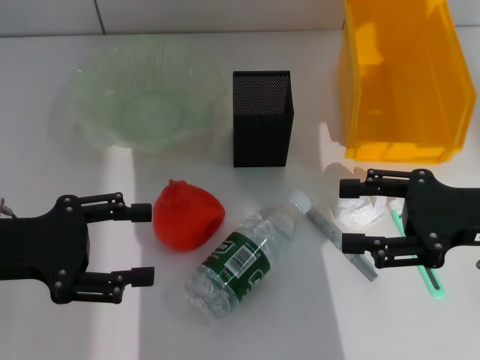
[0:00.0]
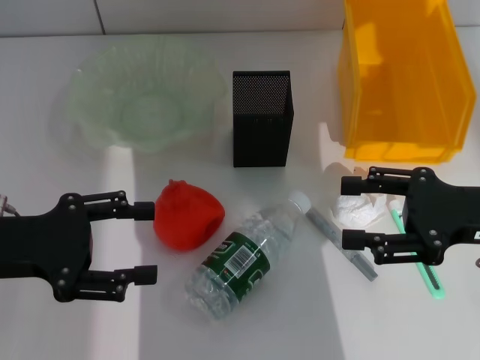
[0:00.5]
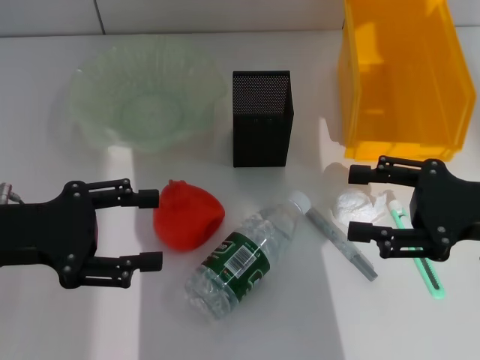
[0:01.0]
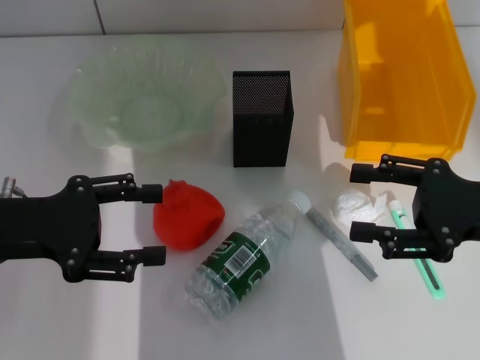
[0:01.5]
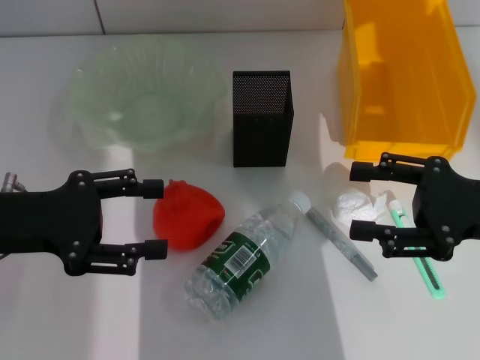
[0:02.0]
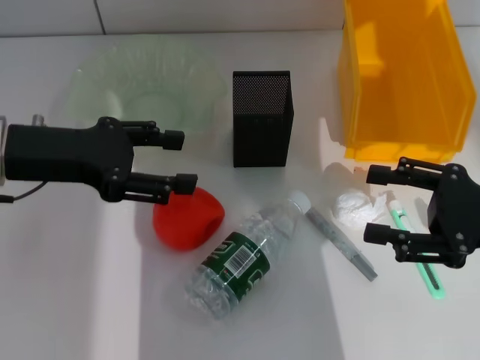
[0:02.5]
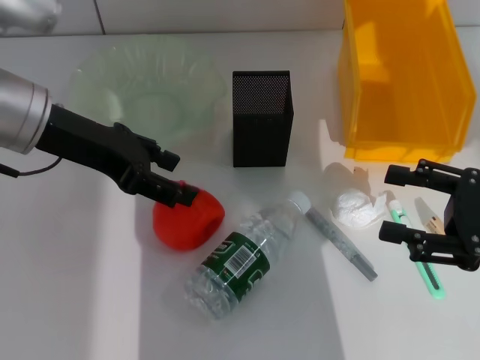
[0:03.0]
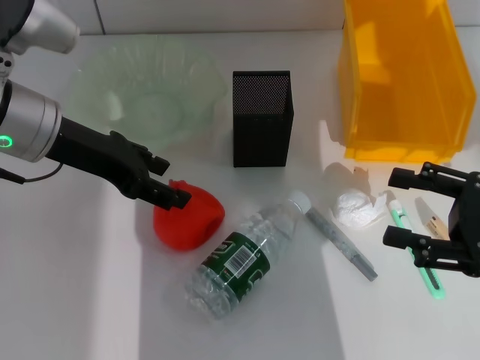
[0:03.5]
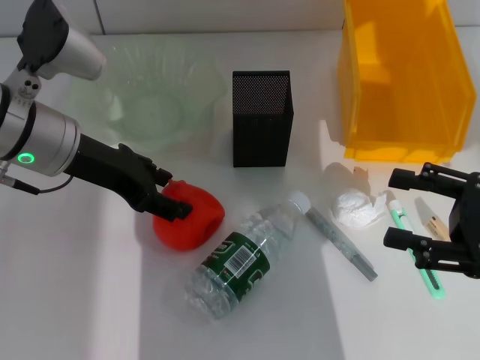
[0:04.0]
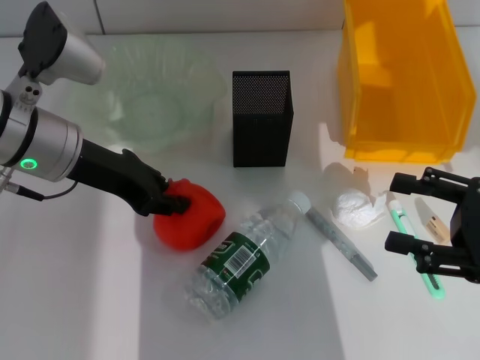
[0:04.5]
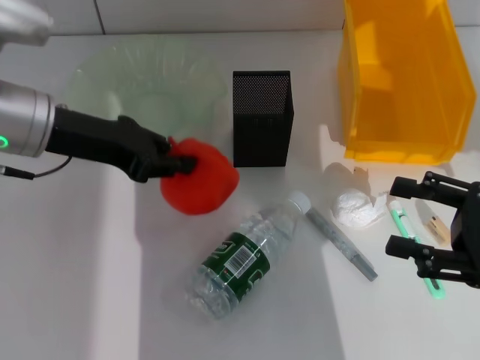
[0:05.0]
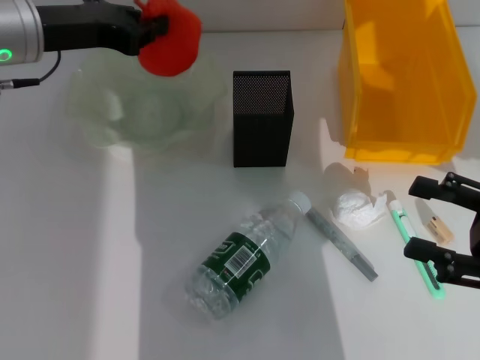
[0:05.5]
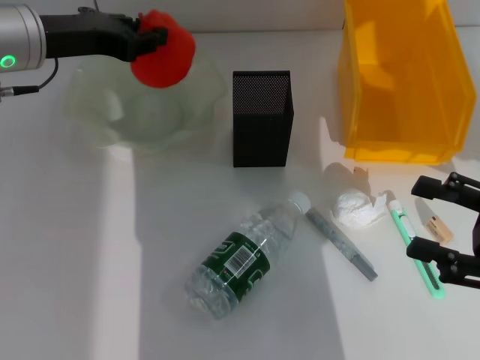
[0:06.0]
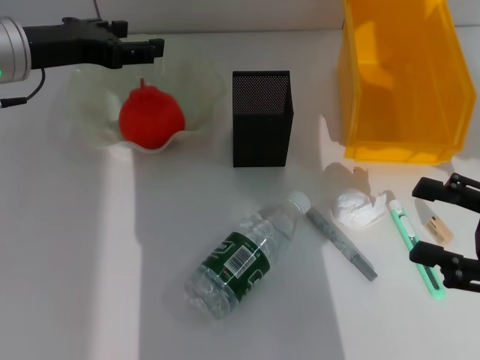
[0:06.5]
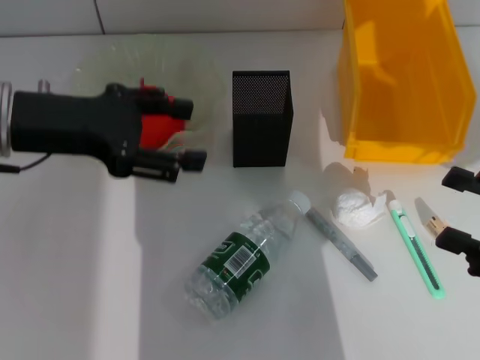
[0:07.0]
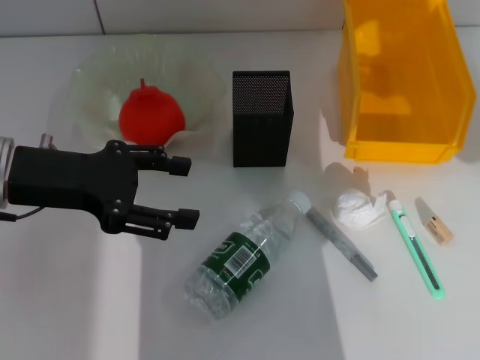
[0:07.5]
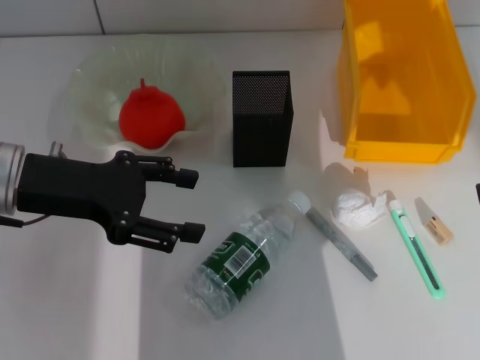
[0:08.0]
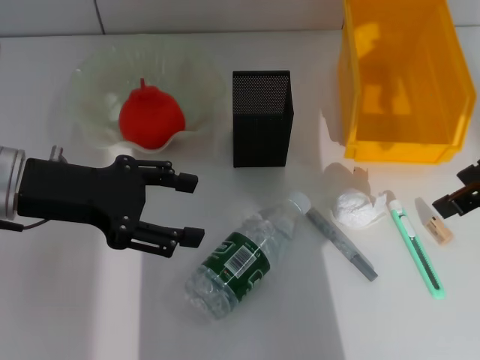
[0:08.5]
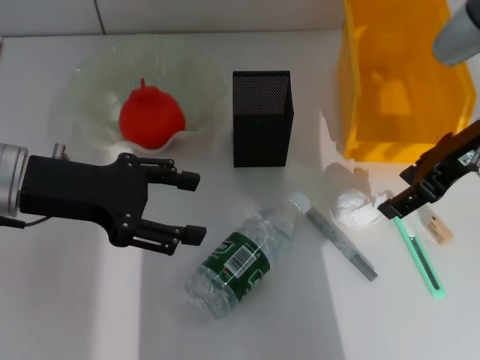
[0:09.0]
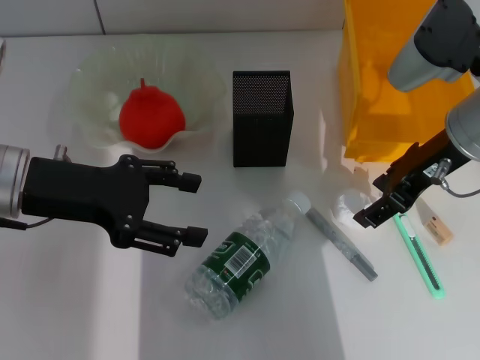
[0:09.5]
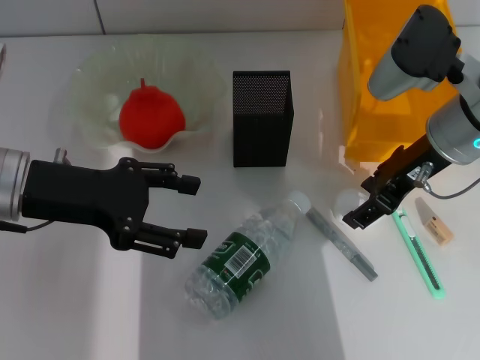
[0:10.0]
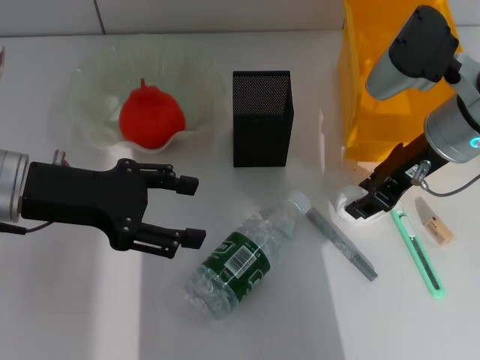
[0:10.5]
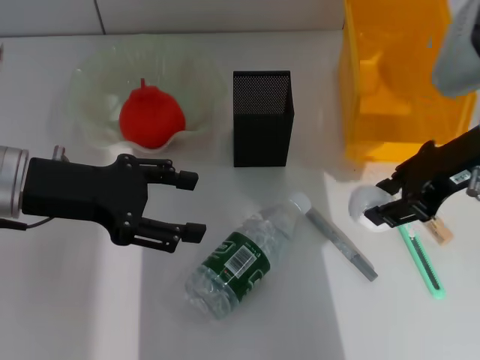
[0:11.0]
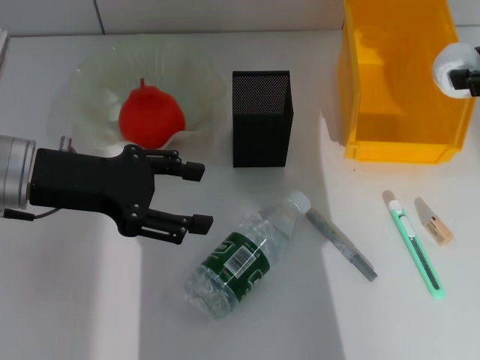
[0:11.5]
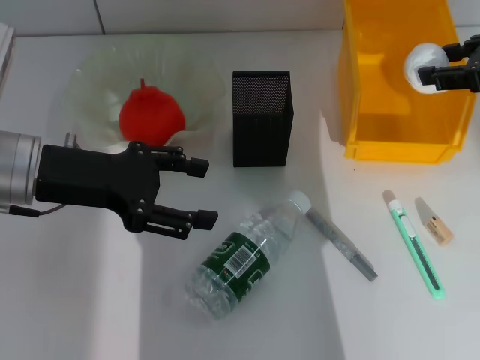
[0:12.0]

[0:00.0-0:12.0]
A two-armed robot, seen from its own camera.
Step, 0:00.0 to 0:04.5: Grab the orange with the left hand.
Step, 0:05.0 to 0:06.0: Place the orange into the fruit bowl with the left hand.
Step, 0:06.5 to 0:10.0: Grab the paper ball with the right hand.
0:00.0 to 0:02.0: The grippers make only small movements.
0:02.0 to 0:04.0: The left gripper shifts some 10 cm forward and to the right.
0:04.0 to 0:06.0: The left gripper ends up roughly 5 cm from where it was, and closes its fingers.
0:06.0 to 0:08.0: The right gripper travels upward and forward by some 15 cm, while the left gripper shifts some 10 cm backward, and opens.
0:08.0 to 0:10.0: The right gripper heads to the left, forward and downward, covering approximately 20 cm.
0:10.0 to 0:12.0: The right gripper heads to the right and upward, covering some 15 cm, and closes up.

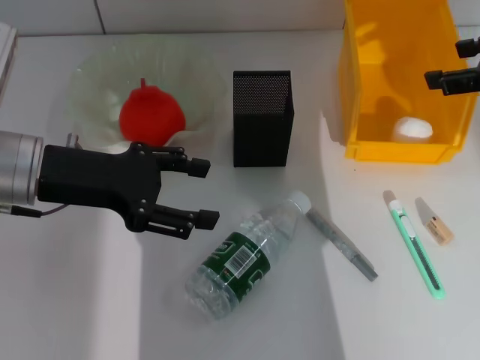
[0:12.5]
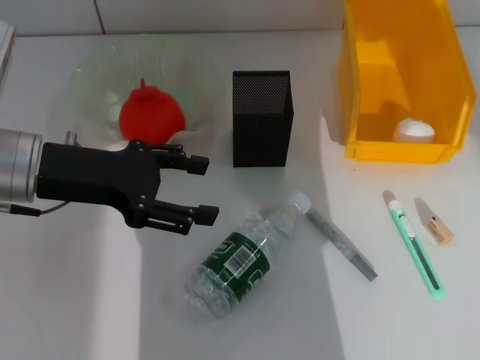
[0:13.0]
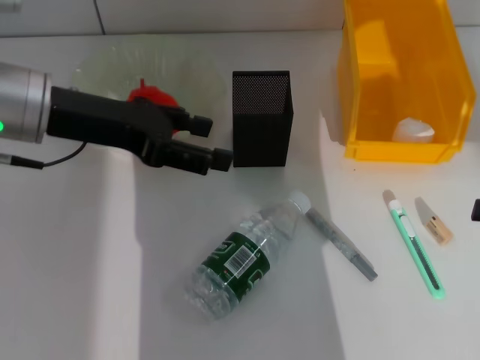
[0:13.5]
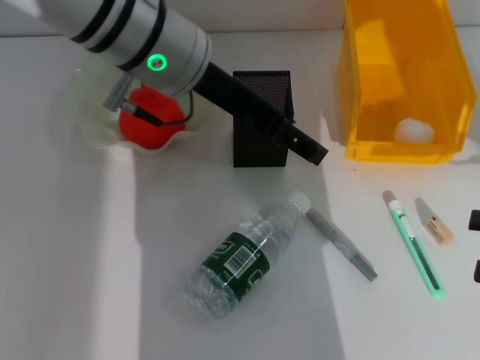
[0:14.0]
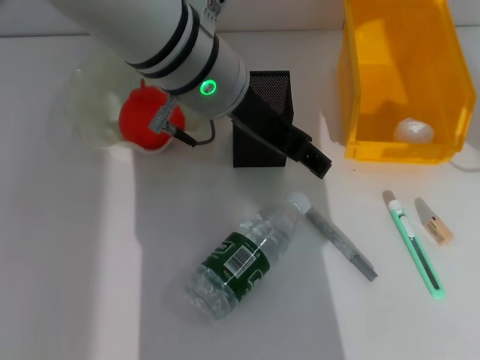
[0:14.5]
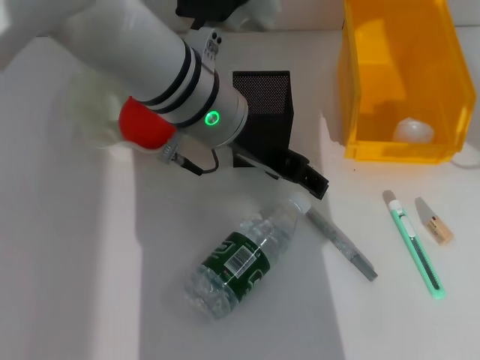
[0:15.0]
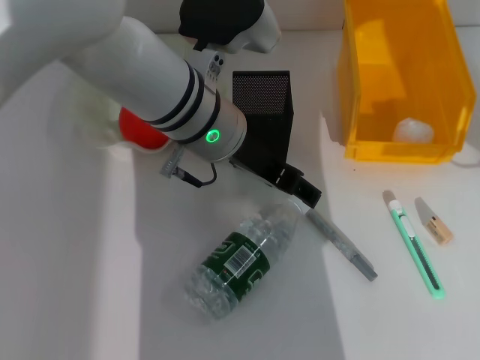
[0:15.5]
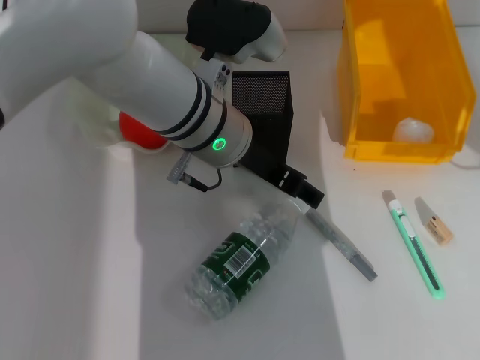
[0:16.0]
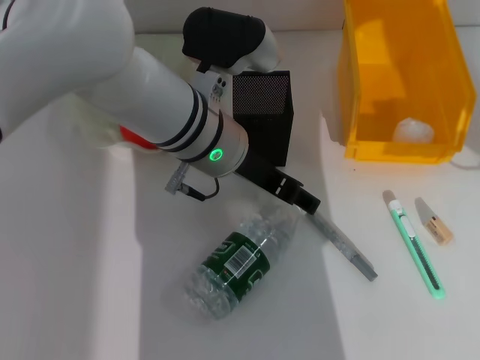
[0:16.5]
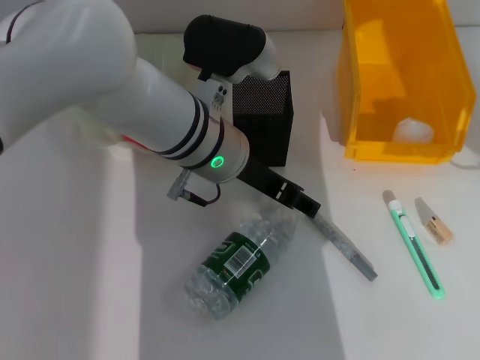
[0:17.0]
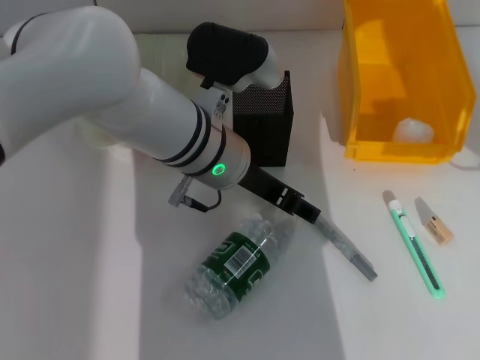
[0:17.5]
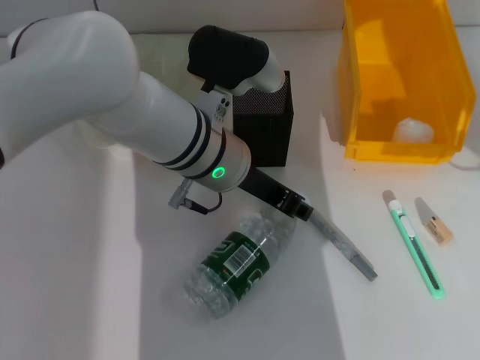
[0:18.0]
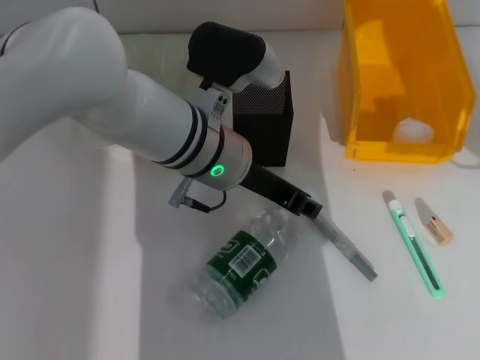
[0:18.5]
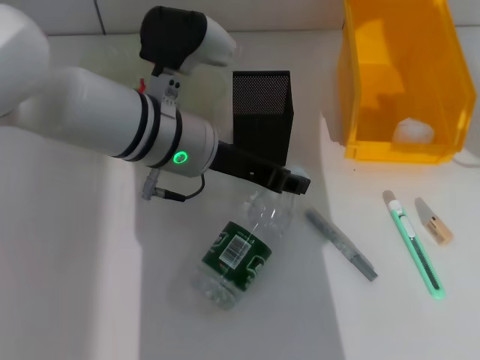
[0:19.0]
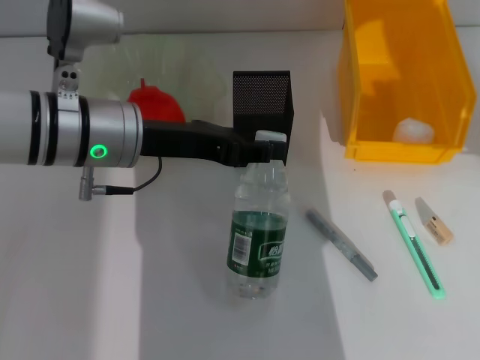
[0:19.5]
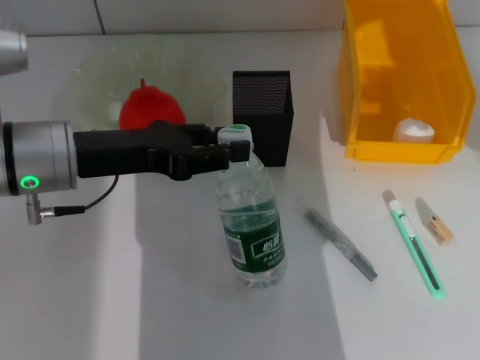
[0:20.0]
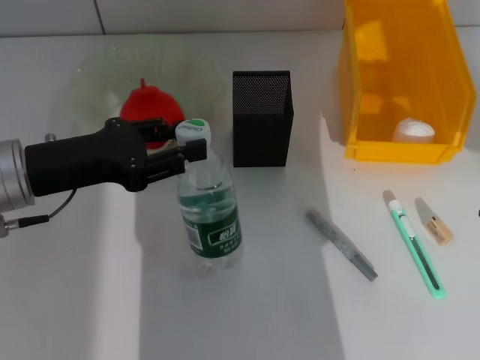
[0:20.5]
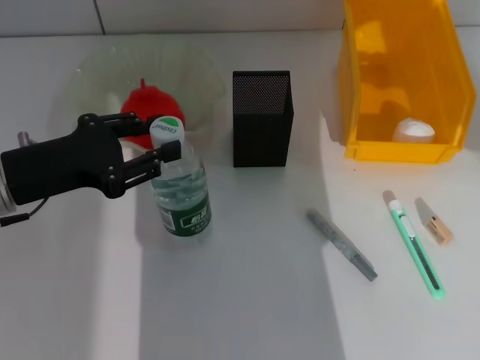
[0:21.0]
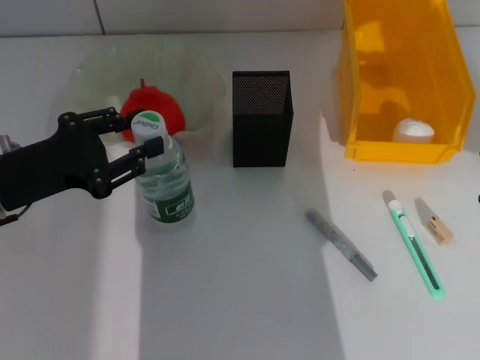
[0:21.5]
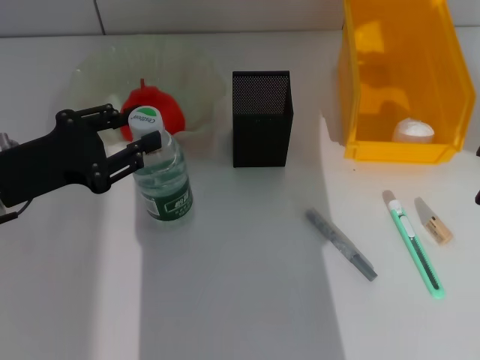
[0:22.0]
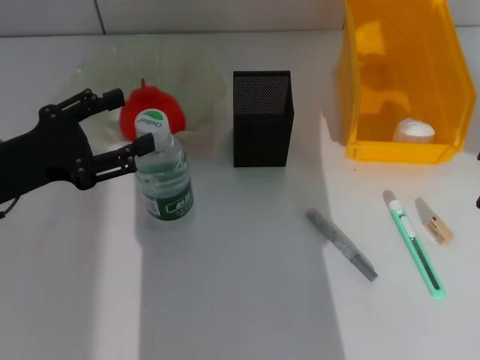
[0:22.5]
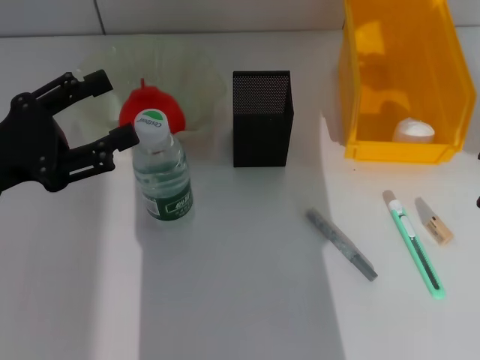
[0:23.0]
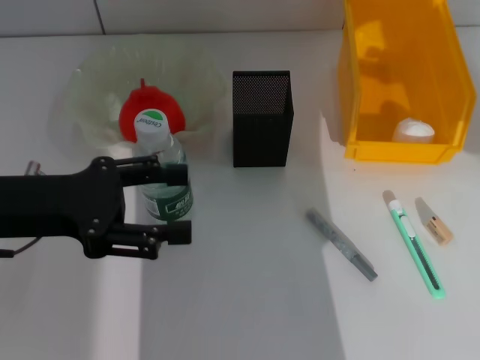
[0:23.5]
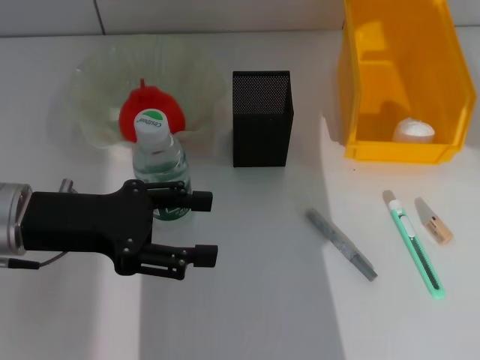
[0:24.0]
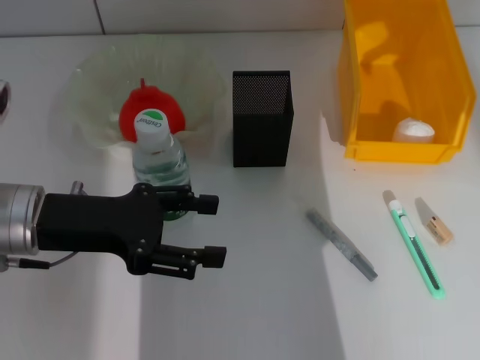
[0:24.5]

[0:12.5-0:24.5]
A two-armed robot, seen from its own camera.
Step, 0:12.5 to 0:18.0: Grab the water bottle with the left hand.
Step, 0:18.5 to 0:22.0: Place the water bottle on the table with the left hand.
0:12.5 to 0:14.5: The right gripper is displaced backward, downward and to the right by roughly 20 cm; the left gripper shifts approximately 20 cm to the right and upward.
0:14.5 to 0:16.5: The left gripper heads downward, covering about 10 cm.
0:16.5 to 0:18.5: The left gripper closes its fingers.
0:18.5 to 0:20.5: The left gripper travels to the left by some 20 cm.
0:22.5 to 0:24.5: The left gripper shifts by about 5 cm, and opens up. Meanwhile the right gripper shifts some 15 cm upward and forward.

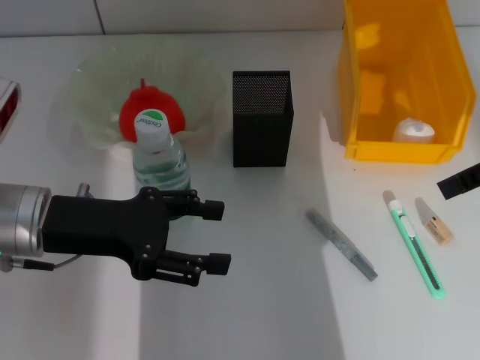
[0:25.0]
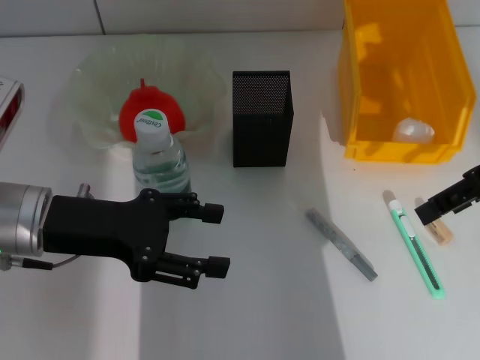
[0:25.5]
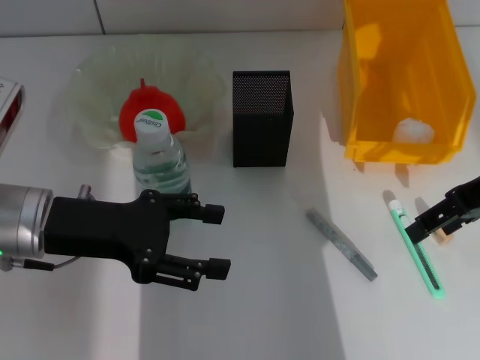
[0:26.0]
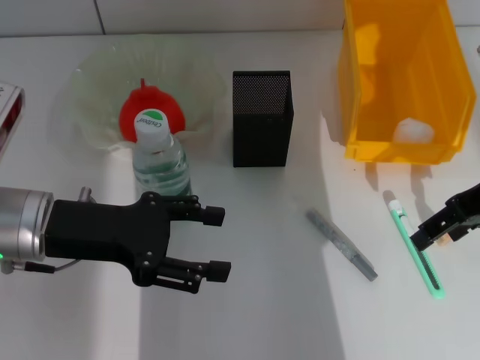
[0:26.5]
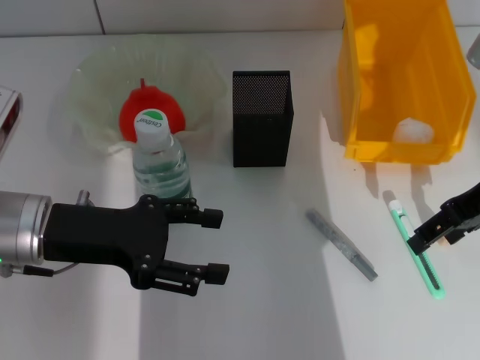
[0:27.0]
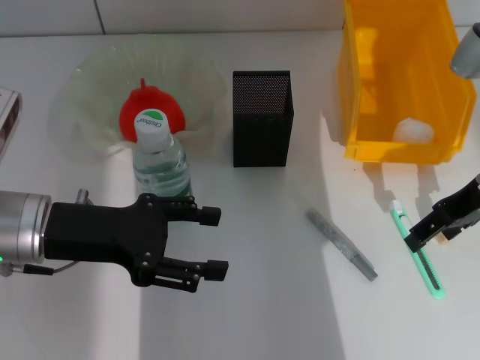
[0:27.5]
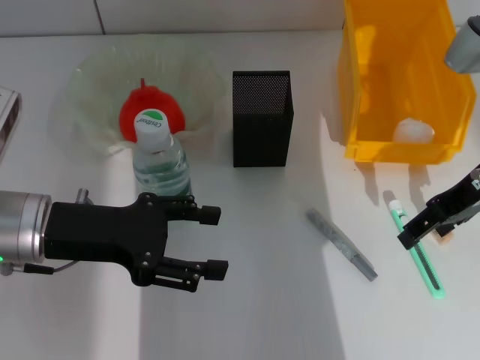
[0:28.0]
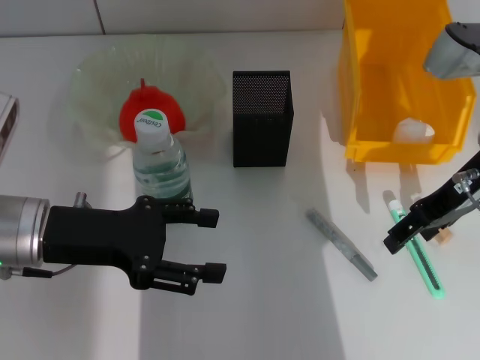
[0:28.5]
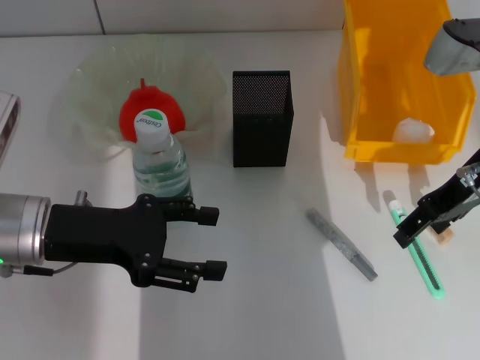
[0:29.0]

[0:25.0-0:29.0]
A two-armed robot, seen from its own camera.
0:25.0 to 0:27.0: The right gripper is displaced downward by approximately 10 cm.
0:27.0 to 0:29.0: The grippers move only a little.
